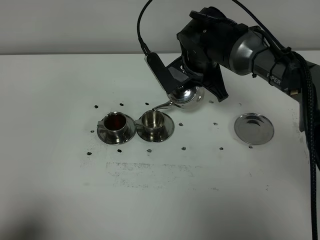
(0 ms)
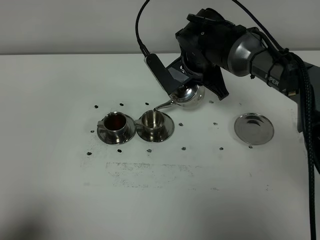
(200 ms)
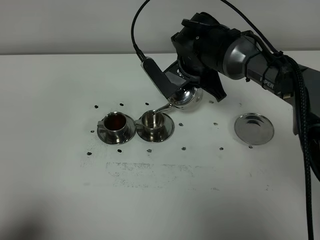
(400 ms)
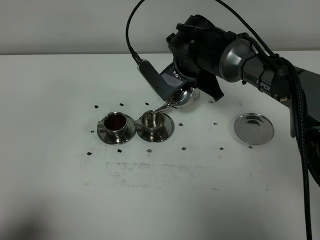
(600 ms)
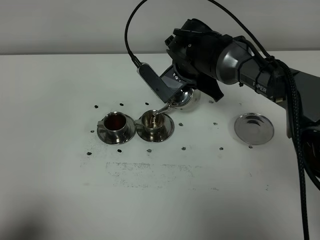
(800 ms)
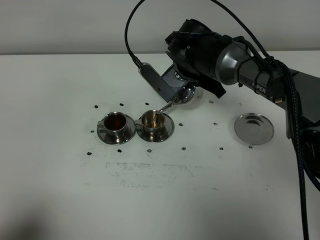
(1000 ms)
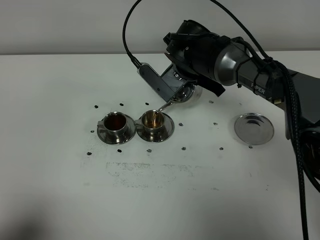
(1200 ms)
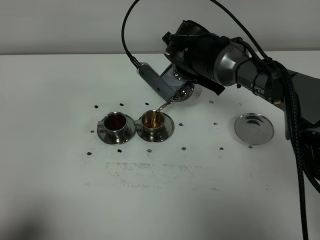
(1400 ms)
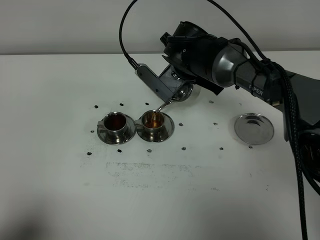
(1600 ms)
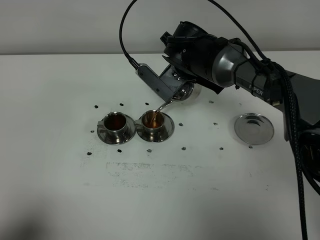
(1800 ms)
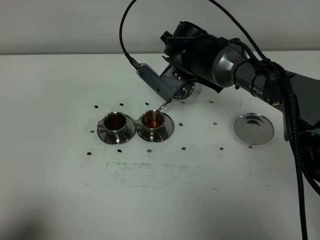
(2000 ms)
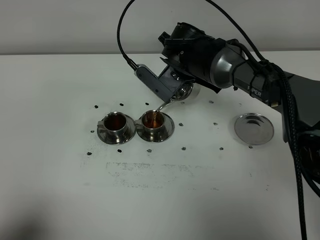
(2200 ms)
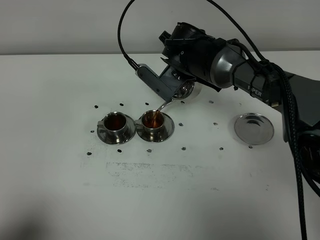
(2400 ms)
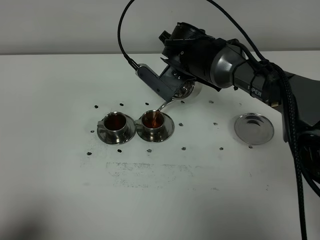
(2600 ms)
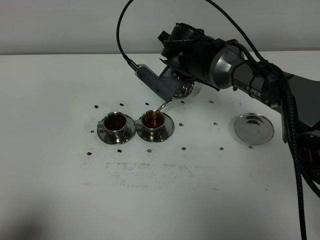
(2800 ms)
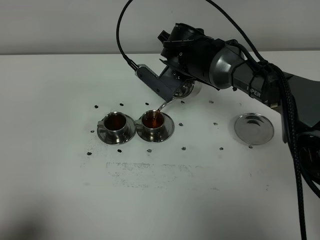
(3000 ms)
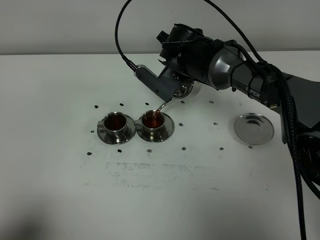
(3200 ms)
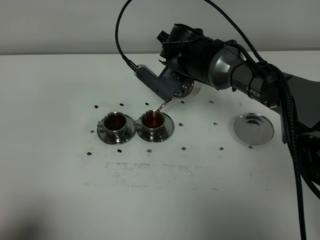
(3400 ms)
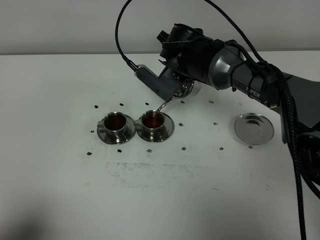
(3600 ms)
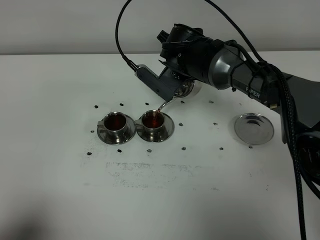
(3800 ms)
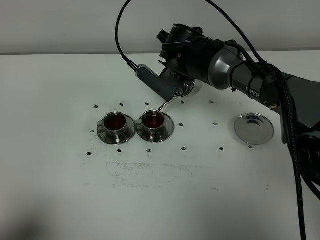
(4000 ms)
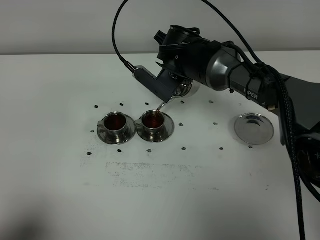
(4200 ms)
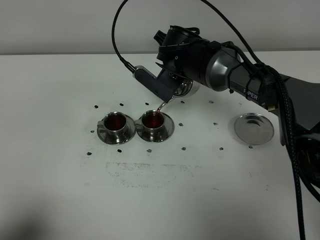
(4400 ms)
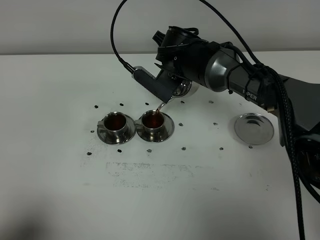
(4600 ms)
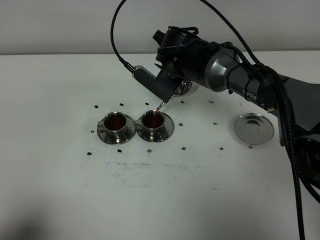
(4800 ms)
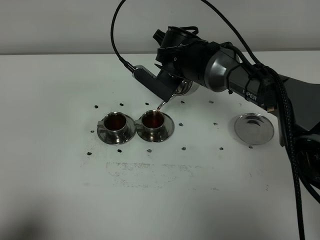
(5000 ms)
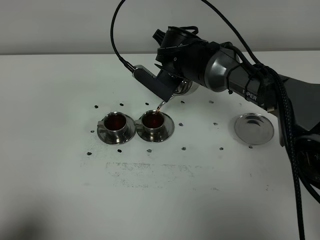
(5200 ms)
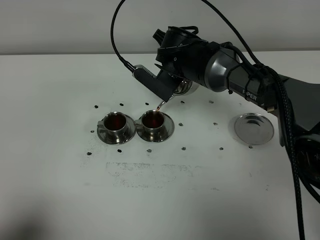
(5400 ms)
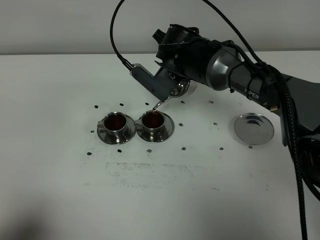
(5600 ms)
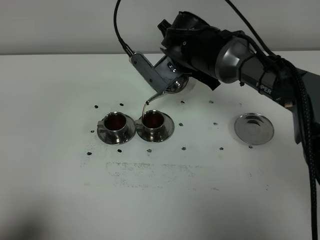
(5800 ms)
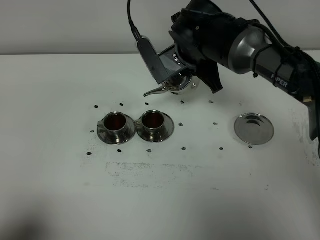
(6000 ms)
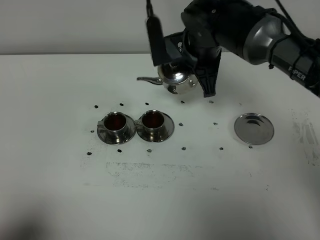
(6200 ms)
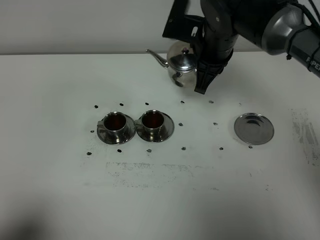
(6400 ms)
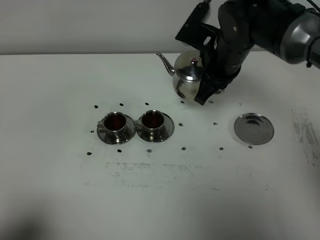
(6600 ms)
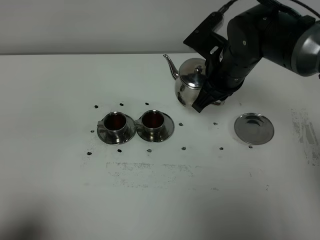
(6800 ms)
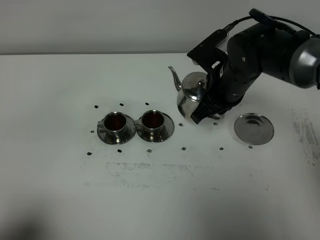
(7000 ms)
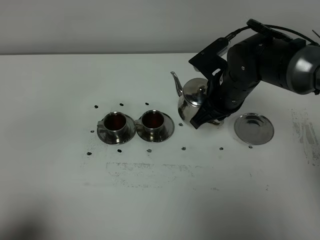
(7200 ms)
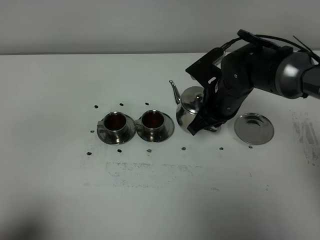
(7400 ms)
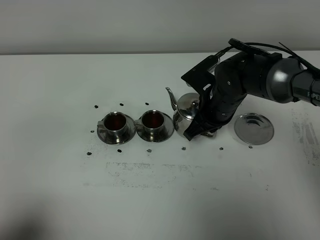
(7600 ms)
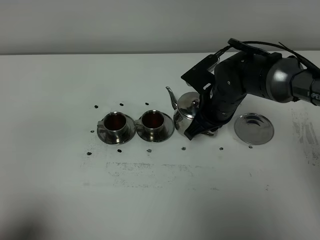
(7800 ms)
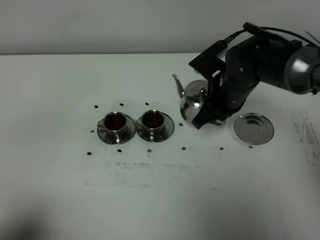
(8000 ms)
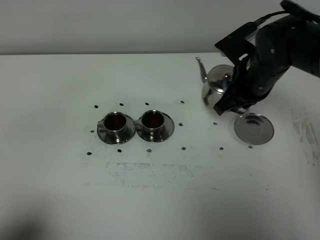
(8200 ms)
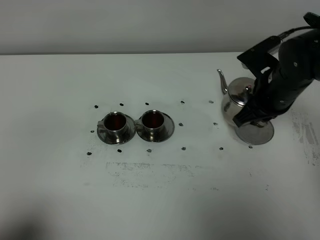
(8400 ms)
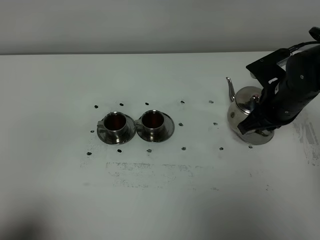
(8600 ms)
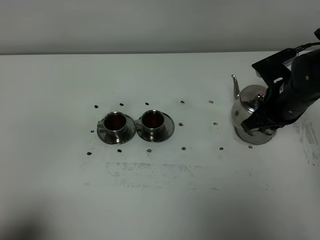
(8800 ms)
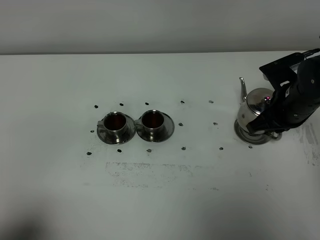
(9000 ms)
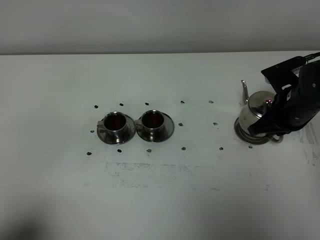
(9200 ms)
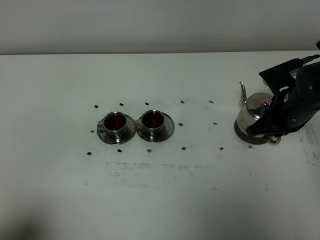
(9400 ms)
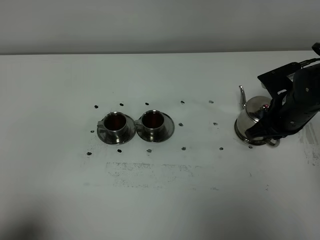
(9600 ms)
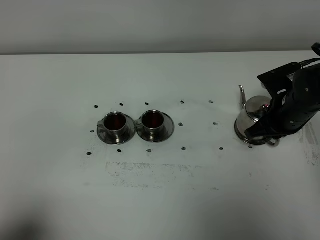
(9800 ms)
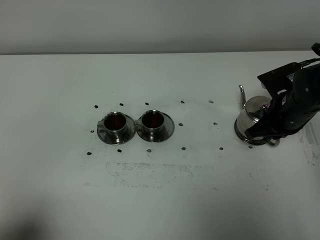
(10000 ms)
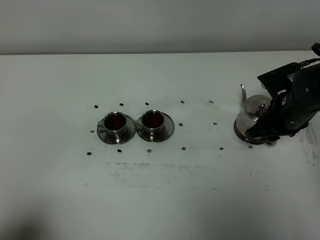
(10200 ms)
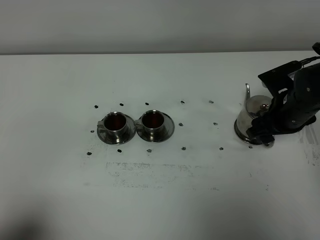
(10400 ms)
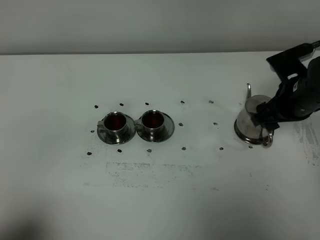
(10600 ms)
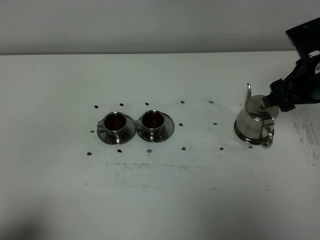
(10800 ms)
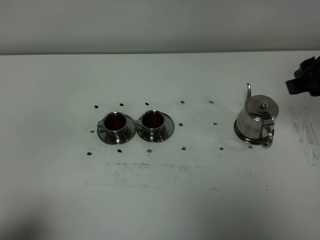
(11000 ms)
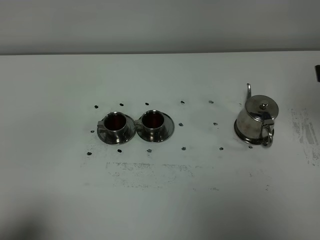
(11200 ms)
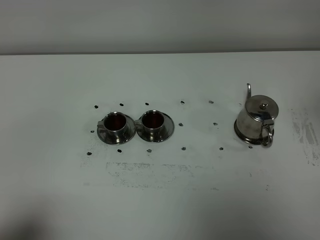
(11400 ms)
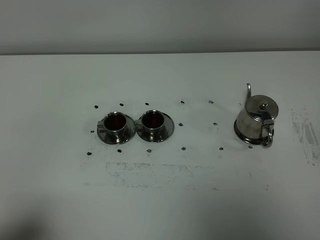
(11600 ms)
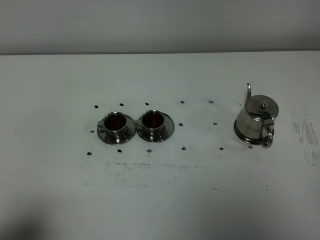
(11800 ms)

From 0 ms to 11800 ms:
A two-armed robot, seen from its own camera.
Task of the whole recording: grasp the stainless steel teapot and pour the tea into the two stainless steel teacups one by one, put the stainless steel teapot back in its original place.
Step, from 0 ms to 5800 ms: Pour tea into the teacup with the right gripper.
From 0 ms to 1400 ms: There are only small adjustments of the grippers.
From 1400 ms to 3000 ms: There are only small adjustments of the grippers.
From 3000 ms to 4400 ms: Both grippers stay about where they are.
From 6000 ms to 7400 ms: The right gripper goes approximately 10 cm downward and to the right.
From 7400 ms to 8800 ms: The right gripper shifts roughly 10 cm to the right.
From 8800 ms to 10400 ms: The right gripper opens.
From 10400 ms to 11800 ms: The right gripper travels backward and upward by about 40 cm, and closes.

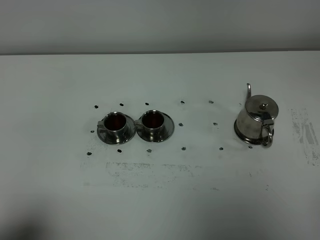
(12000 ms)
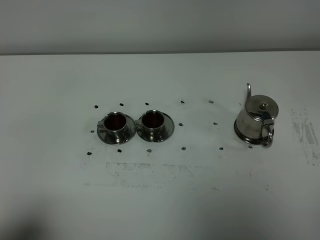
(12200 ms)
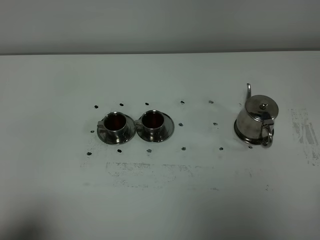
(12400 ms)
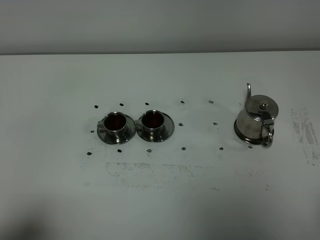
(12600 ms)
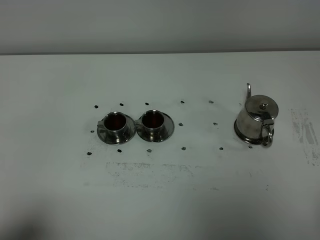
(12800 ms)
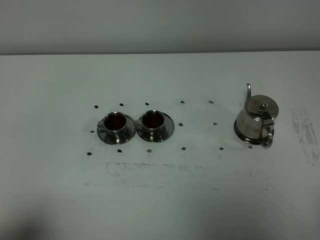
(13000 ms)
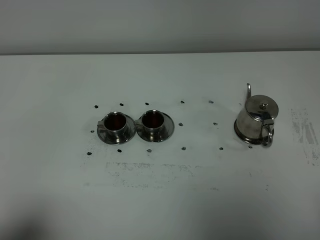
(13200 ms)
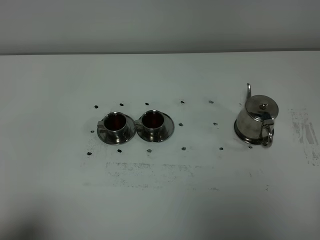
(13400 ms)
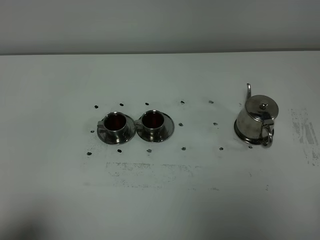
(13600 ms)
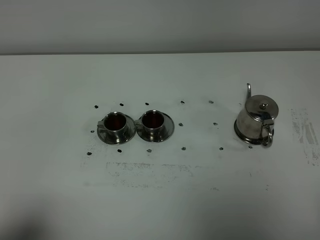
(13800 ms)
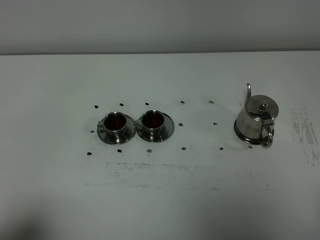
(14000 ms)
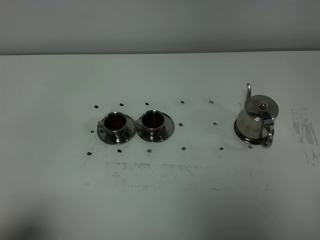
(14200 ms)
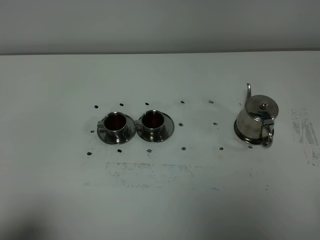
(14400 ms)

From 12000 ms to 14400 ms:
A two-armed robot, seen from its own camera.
Task of the whole recording: grasp the stainless steel teapot and pour the tea into the two stainless steel teacups one by one, put the stainless steel teapot back in its original place.
From 13200 ms to 14400 ms: Both grippers stay put.

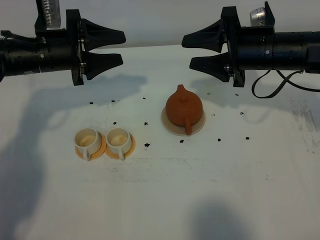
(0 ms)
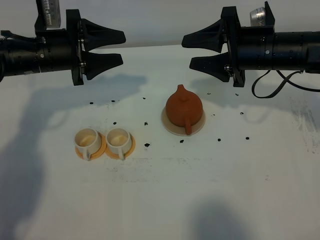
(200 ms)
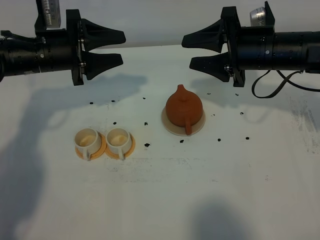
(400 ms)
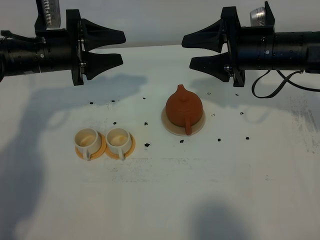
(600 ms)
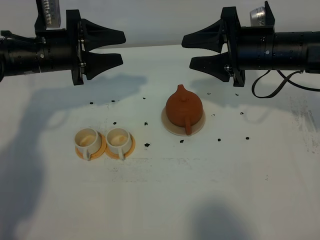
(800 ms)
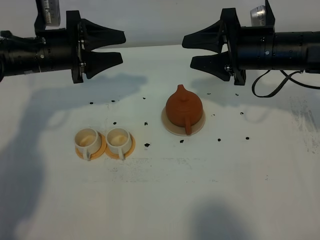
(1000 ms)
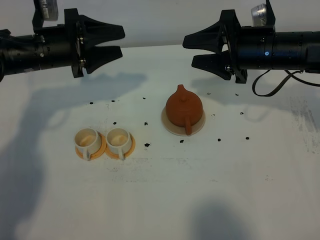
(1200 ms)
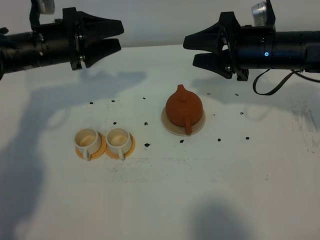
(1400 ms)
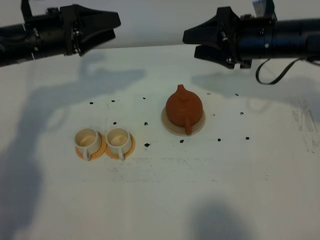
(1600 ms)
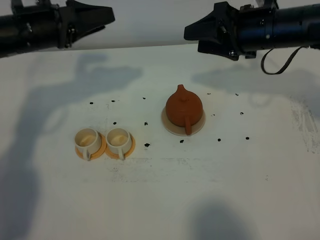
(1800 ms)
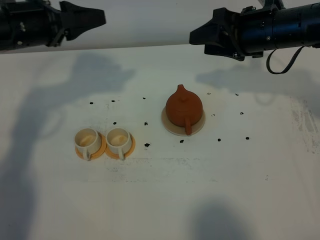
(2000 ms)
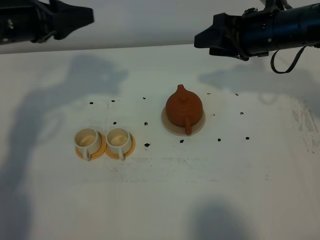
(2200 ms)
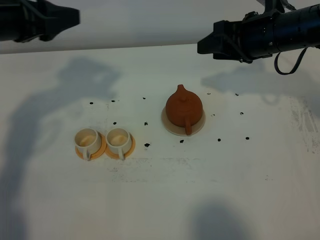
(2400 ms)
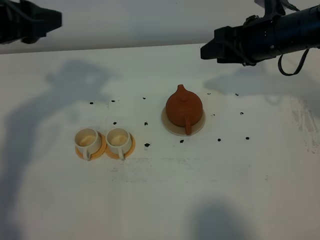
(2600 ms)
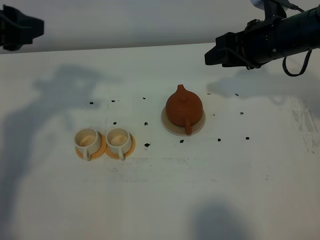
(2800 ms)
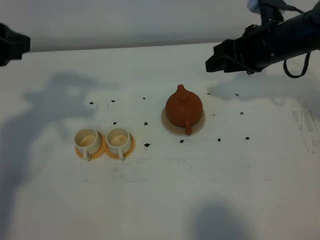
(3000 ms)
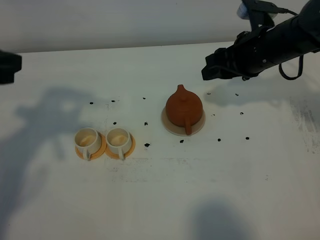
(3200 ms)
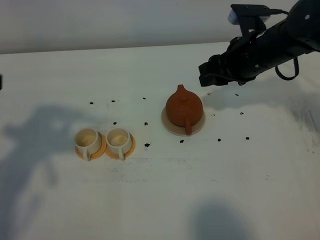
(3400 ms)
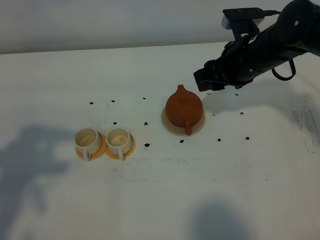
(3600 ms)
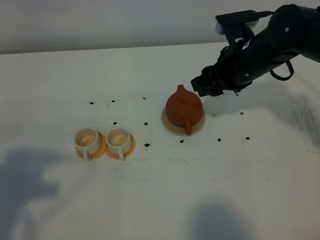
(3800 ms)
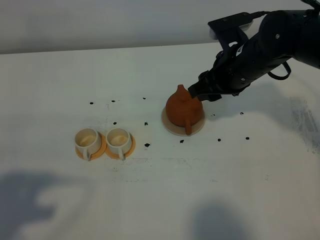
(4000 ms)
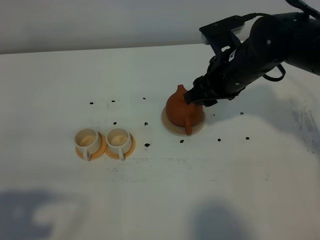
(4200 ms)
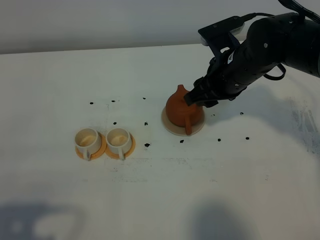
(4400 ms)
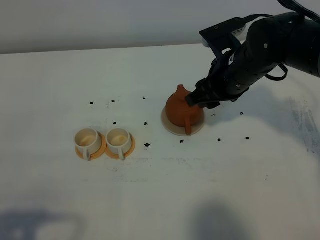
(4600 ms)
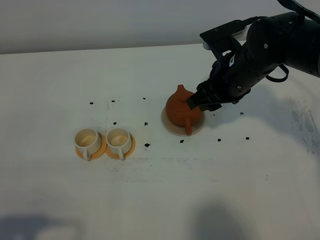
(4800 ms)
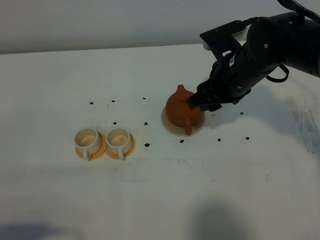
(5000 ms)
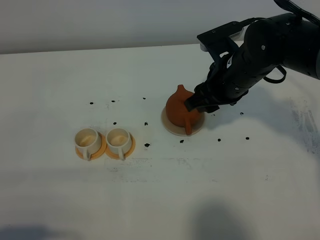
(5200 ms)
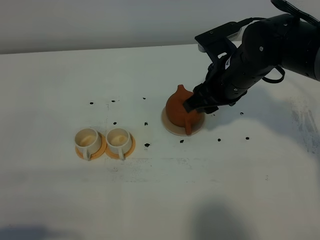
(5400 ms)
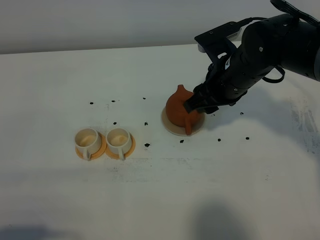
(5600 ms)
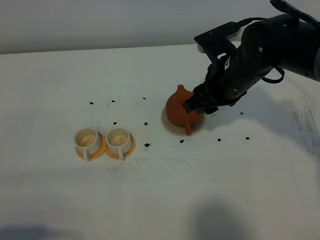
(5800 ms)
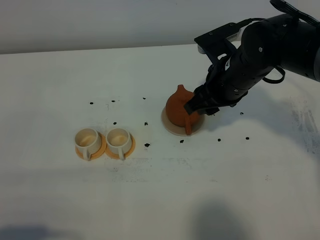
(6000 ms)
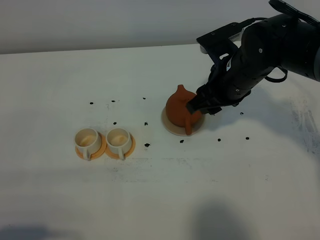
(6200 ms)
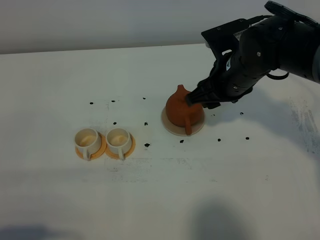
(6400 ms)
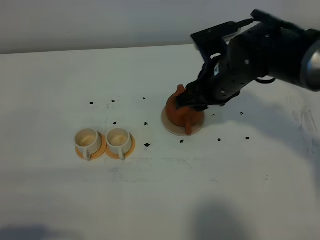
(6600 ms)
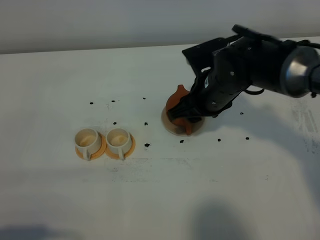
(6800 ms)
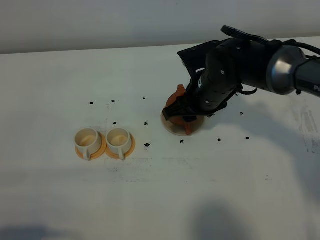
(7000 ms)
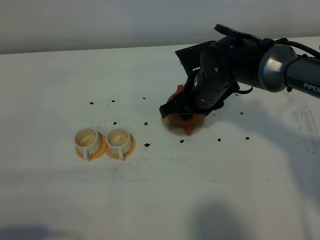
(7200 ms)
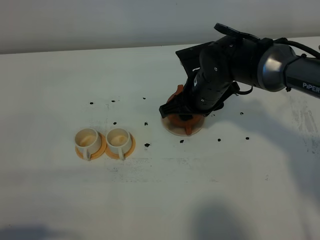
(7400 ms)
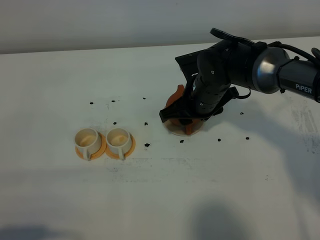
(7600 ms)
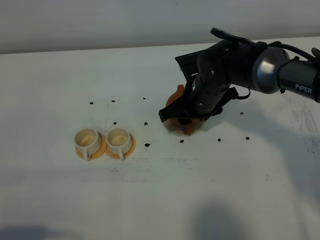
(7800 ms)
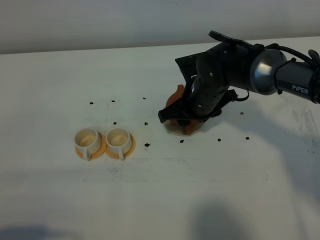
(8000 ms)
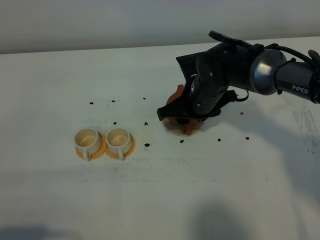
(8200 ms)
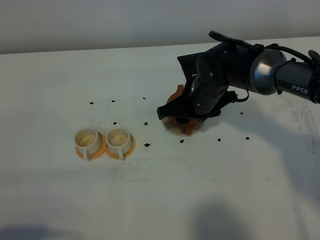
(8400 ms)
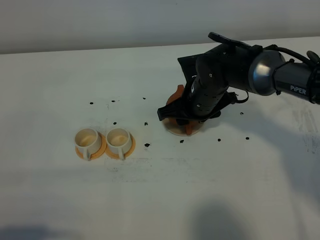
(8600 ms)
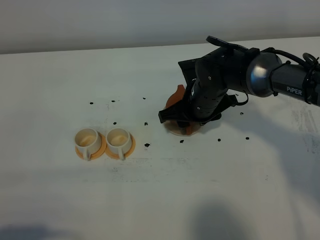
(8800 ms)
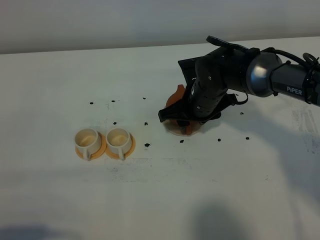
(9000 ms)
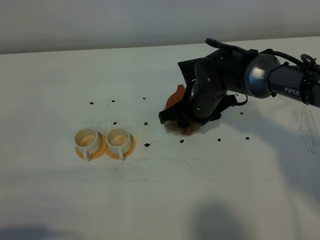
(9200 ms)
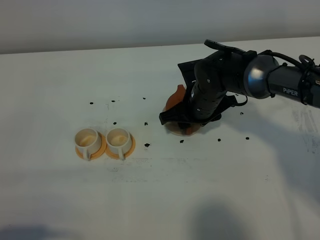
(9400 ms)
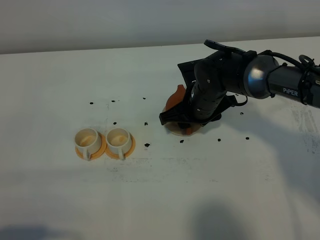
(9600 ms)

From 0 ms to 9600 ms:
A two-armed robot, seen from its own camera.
Task of the whole recording: grasp the brown teapot and pour the tea into the two white teacups one by one, put the brown teapot back in its original place.
From 1600 ms to 3200 ms: The left gripper travels backward and upward by some 20 cm, and closes its fingers.
From 3200 ms to 4800 ms: The left gripper shifts roughly 25 cm backward and downward, and closes; the right gripper ends up about 5 cm from where it was.
From 4800 ms to 6400 ms: The grippers move only a little.
From 6400 ms to 8000 ms: The right gripper goes about 5 cm downward.
From 8000 ms to 9600 ms: The grippers move only a little.
